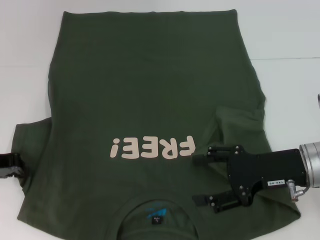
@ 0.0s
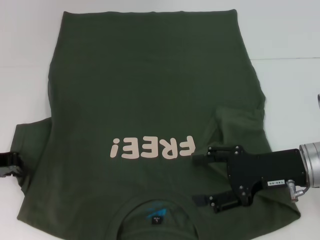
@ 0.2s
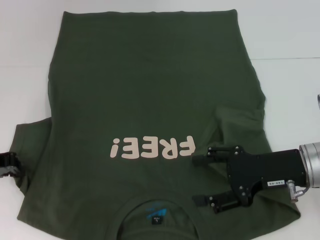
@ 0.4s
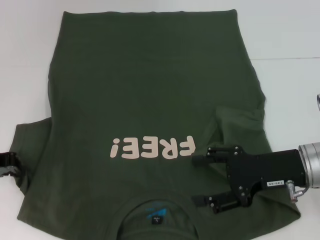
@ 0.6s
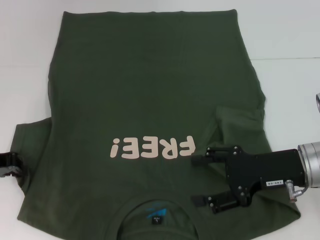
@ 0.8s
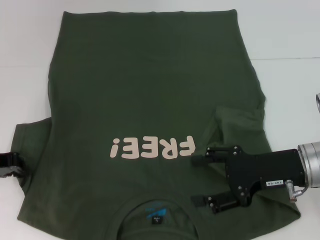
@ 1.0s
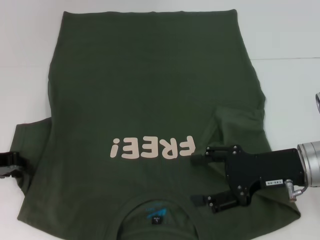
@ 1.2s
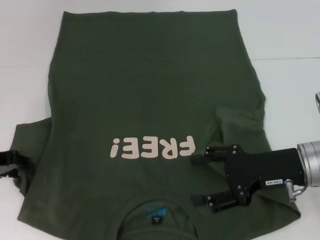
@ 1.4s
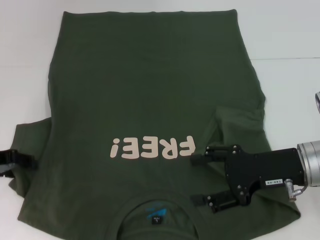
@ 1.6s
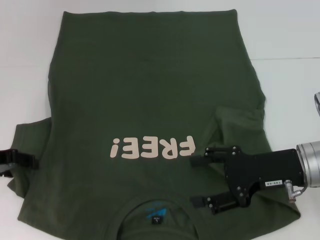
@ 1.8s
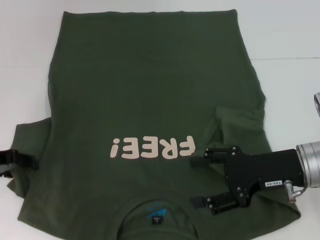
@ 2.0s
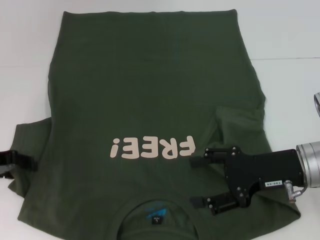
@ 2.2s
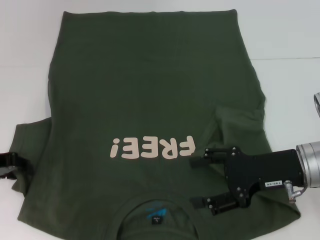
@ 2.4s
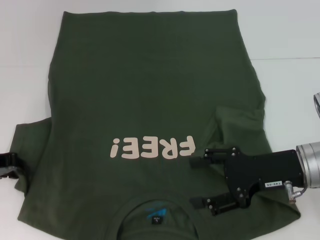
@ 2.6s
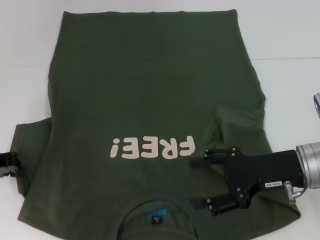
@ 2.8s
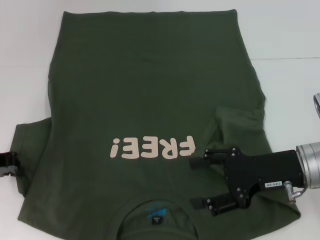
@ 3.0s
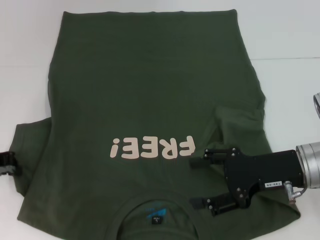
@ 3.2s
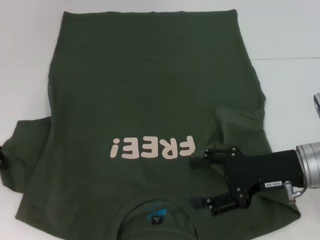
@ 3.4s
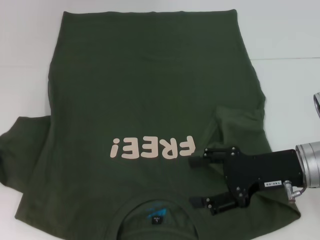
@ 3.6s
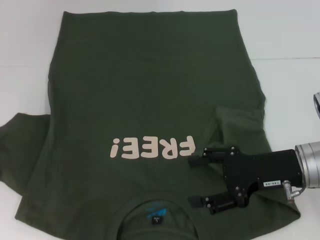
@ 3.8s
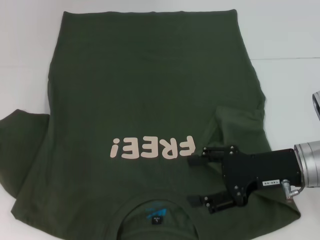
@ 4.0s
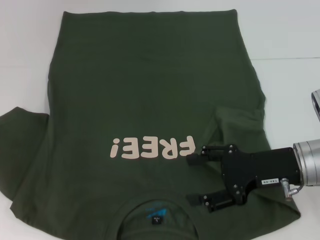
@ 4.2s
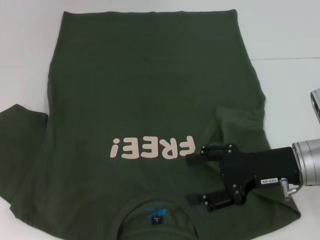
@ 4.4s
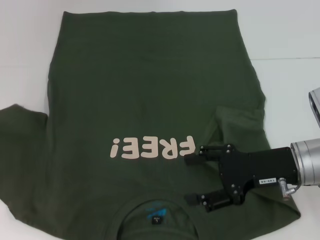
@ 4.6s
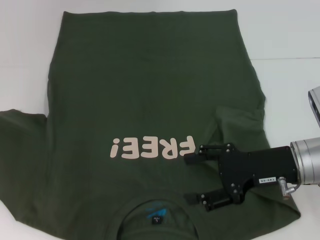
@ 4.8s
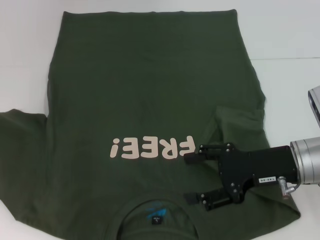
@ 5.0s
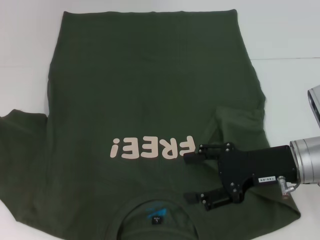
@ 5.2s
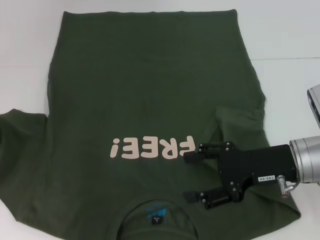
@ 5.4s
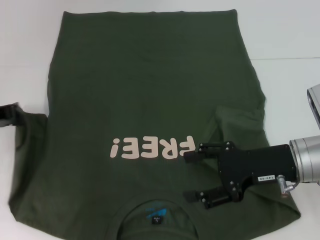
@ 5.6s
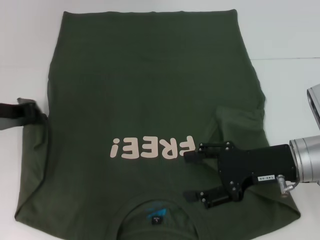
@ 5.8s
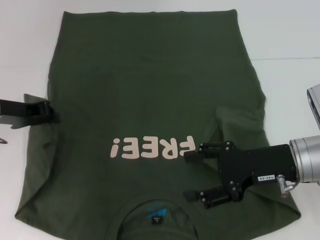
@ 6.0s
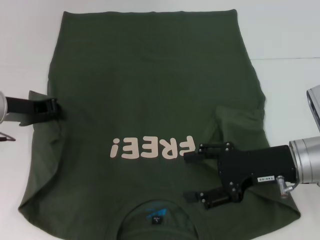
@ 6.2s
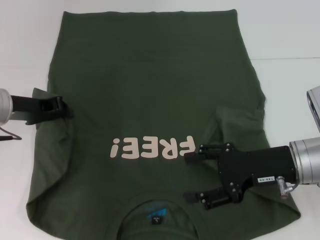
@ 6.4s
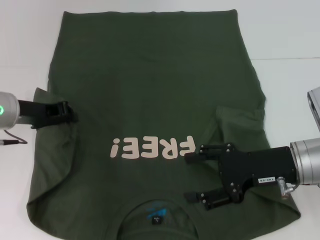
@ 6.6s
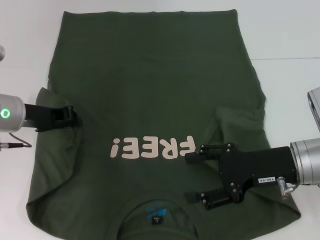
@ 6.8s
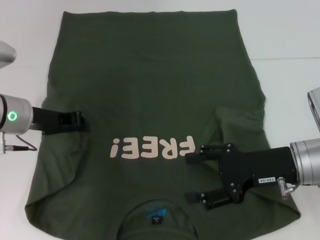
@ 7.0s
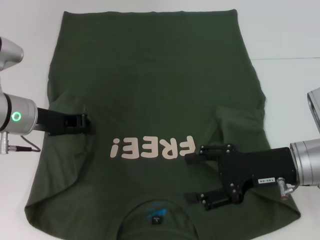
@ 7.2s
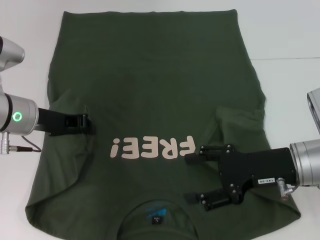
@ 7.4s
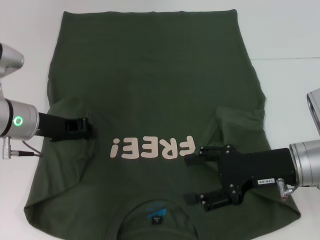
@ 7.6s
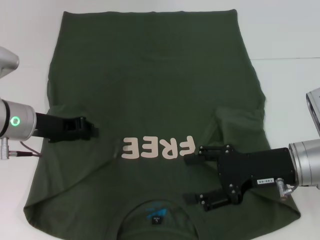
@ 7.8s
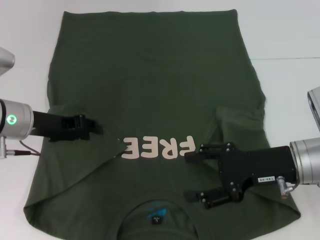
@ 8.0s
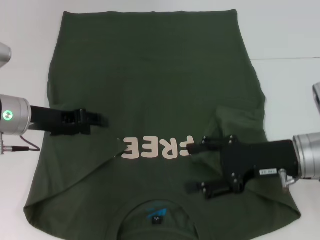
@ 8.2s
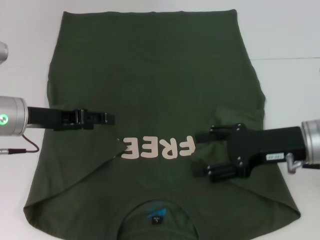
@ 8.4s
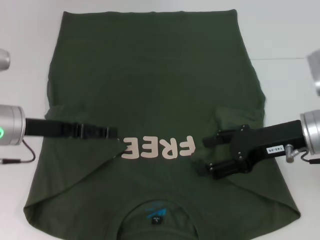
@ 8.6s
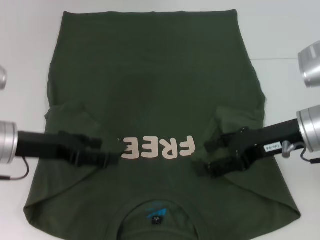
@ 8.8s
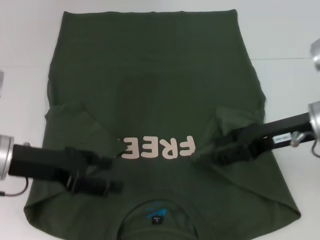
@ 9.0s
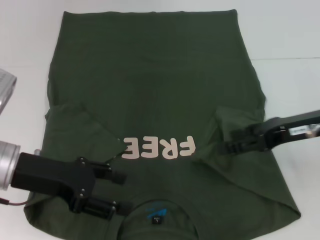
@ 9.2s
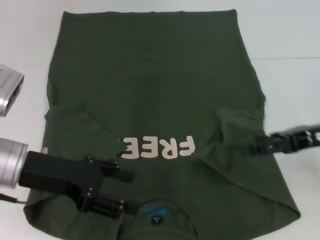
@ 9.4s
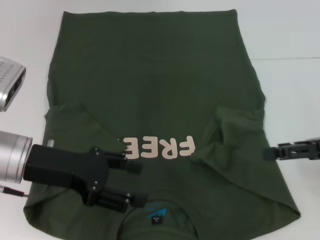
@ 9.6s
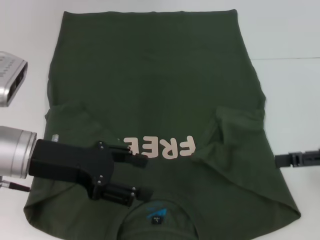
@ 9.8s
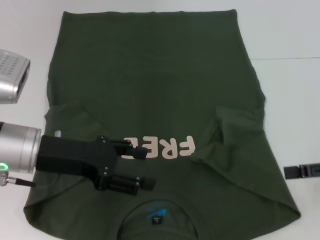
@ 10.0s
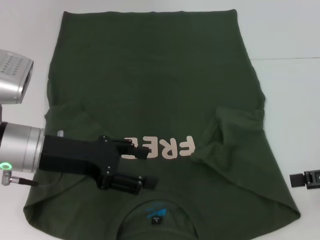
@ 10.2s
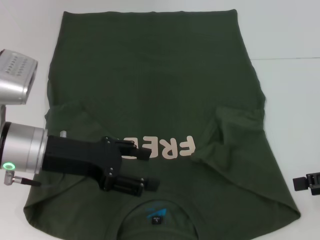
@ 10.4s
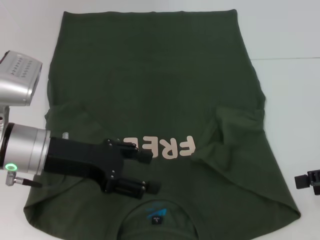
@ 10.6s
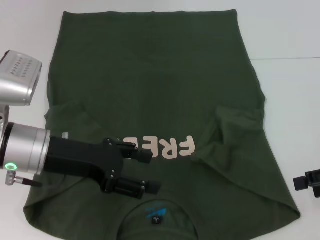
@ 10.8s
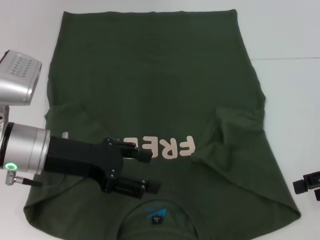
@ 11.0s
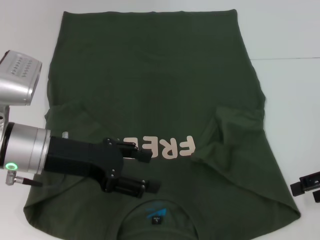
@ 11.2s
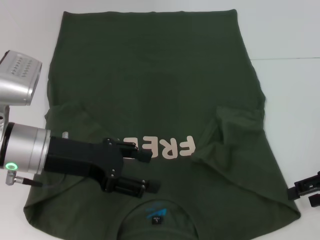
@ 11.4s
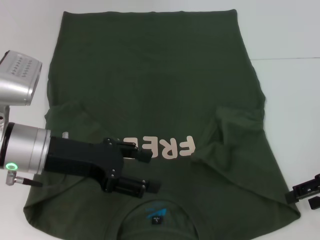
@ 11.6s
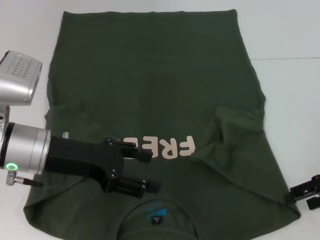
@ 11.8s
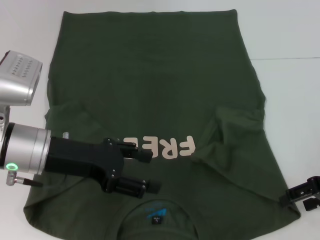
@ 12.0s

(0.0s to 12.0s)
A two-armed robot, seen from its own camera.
Step, 0.0s - 8.0s: Fold the bottom left sleeve with your left hand.
0.0s - 1.6s: The left gripper opens.
1.6s - 3.0s: The two grippers keep their place.
3.0s - 4.4s: The grippers make only small movements.
4.4s - 6.0s: The left gripper moves to the right, about 10 cm.
6.0s - 7.6s: The left gripper shifts by some 5 cm.
7.6s - 9.0s: The right gripper is displaced upward by some 5 cm. The left gripper goes approximately 5 cm backward, and opens its fingers.
9.0s - 10.4s: The right gripper moves to the right and backward, roughly 15 cm.
10.4s - 12.0s: The right gripper changes place by some 5 cm.

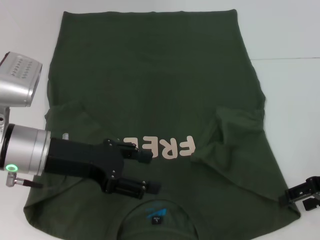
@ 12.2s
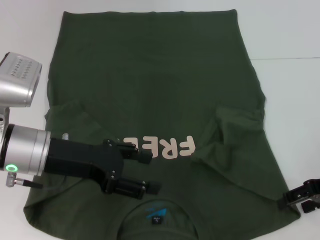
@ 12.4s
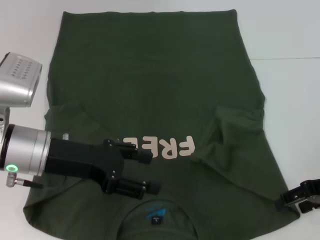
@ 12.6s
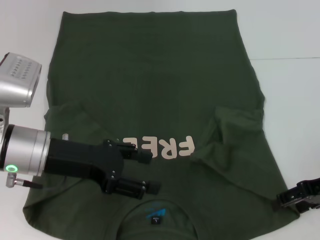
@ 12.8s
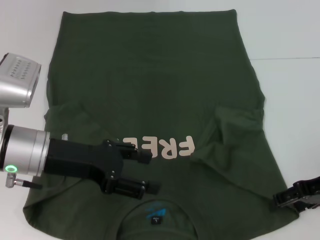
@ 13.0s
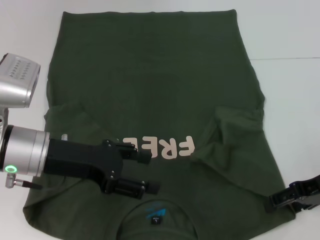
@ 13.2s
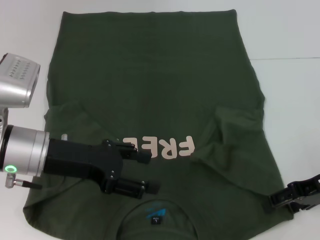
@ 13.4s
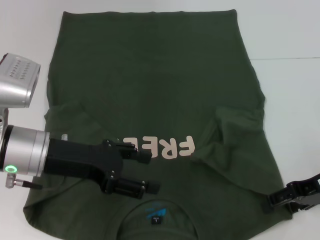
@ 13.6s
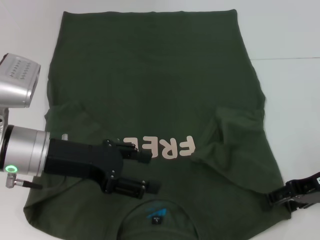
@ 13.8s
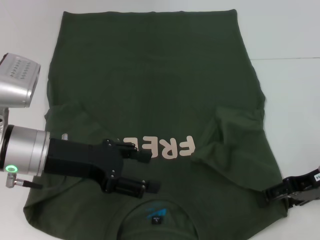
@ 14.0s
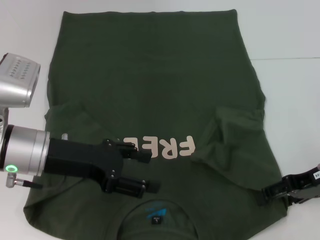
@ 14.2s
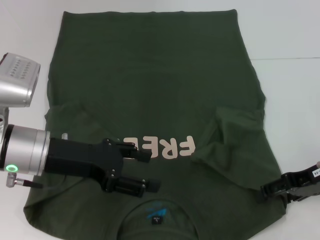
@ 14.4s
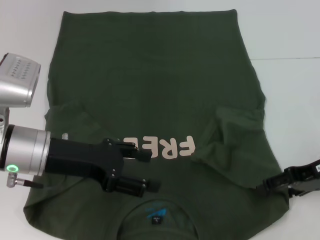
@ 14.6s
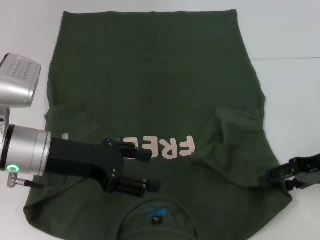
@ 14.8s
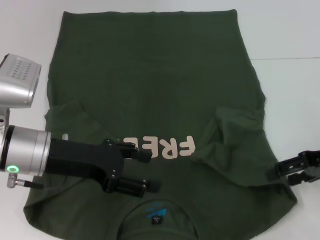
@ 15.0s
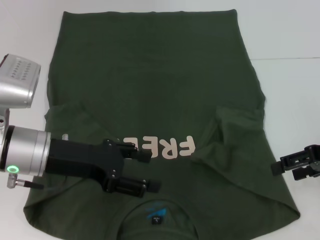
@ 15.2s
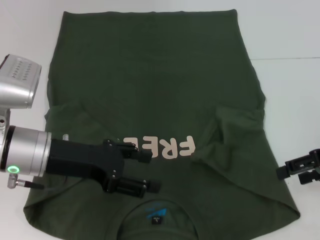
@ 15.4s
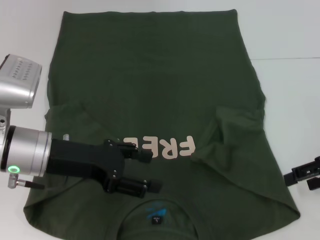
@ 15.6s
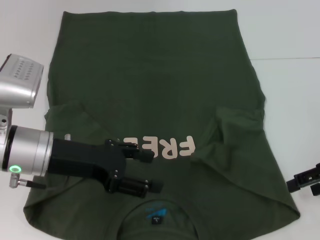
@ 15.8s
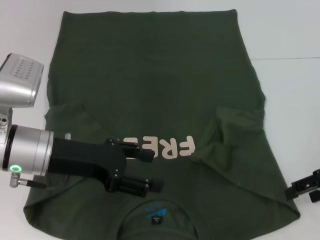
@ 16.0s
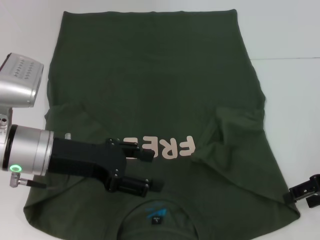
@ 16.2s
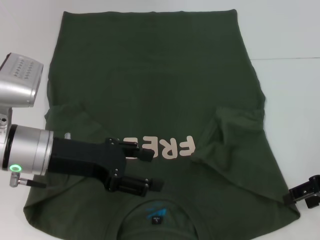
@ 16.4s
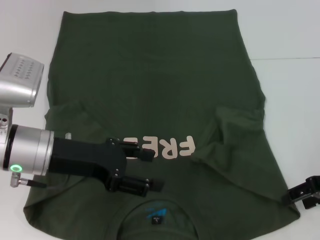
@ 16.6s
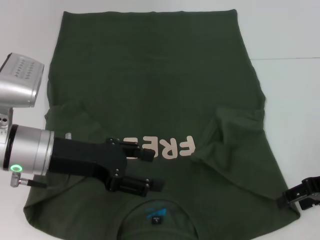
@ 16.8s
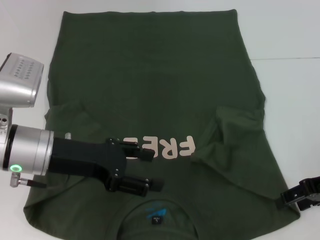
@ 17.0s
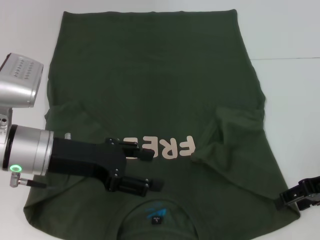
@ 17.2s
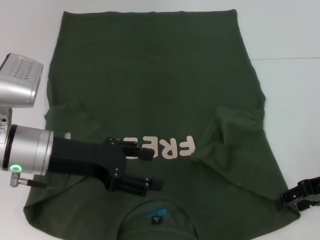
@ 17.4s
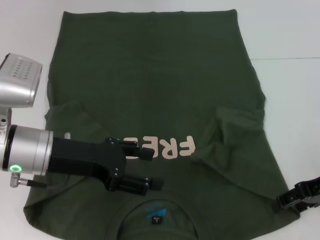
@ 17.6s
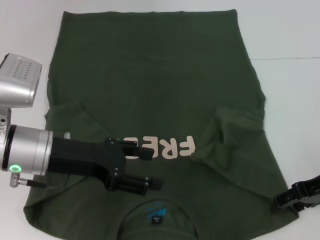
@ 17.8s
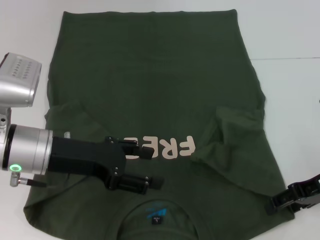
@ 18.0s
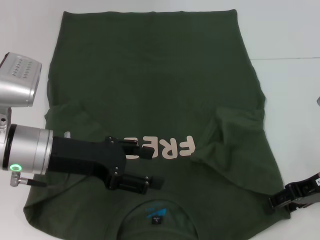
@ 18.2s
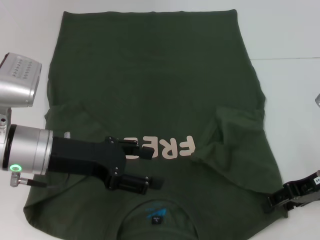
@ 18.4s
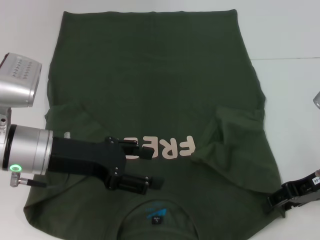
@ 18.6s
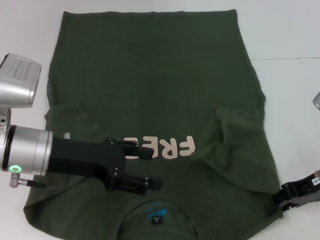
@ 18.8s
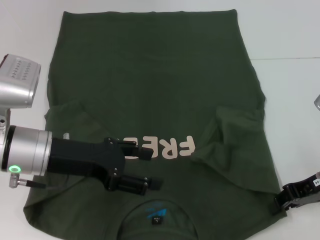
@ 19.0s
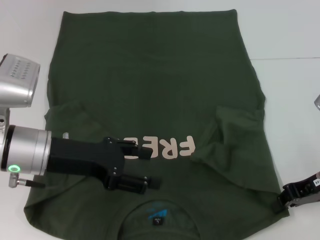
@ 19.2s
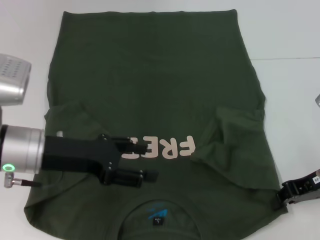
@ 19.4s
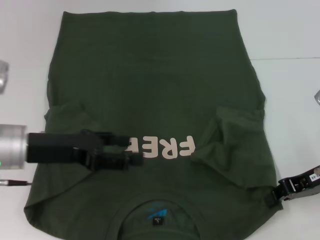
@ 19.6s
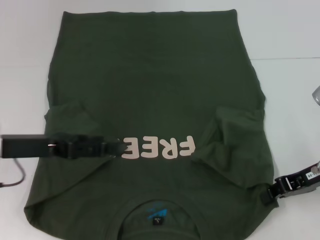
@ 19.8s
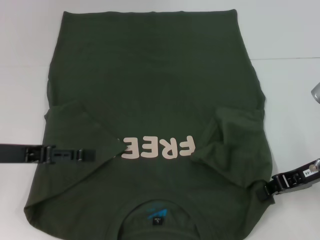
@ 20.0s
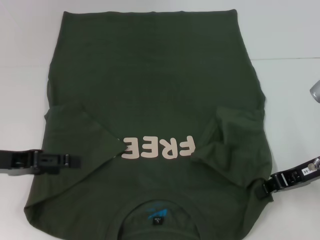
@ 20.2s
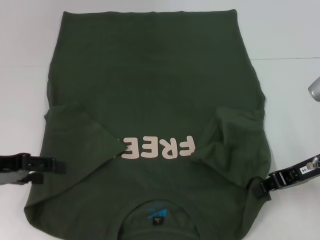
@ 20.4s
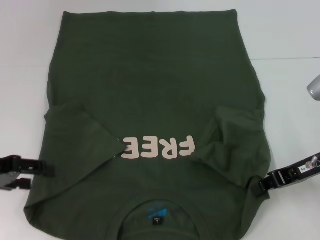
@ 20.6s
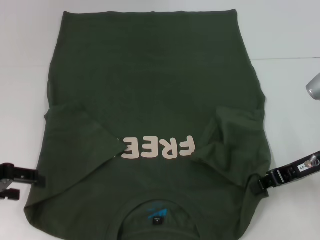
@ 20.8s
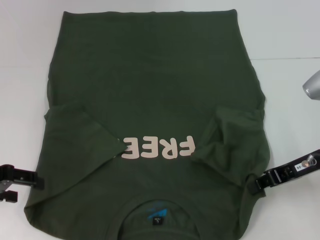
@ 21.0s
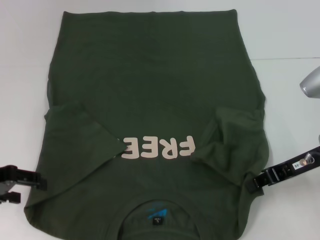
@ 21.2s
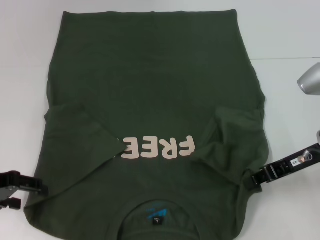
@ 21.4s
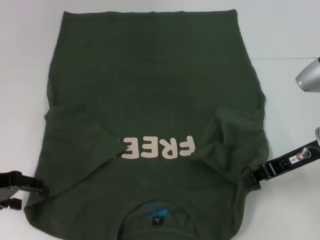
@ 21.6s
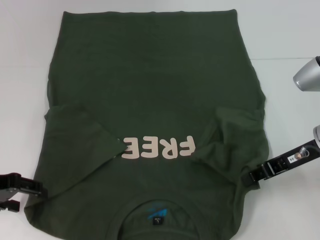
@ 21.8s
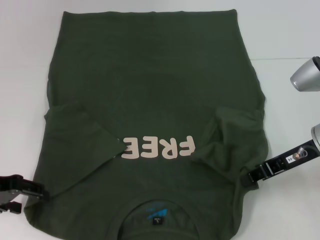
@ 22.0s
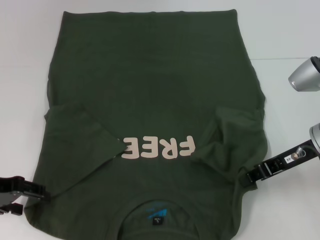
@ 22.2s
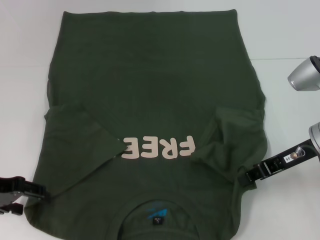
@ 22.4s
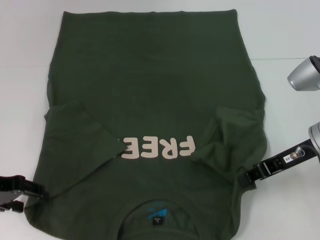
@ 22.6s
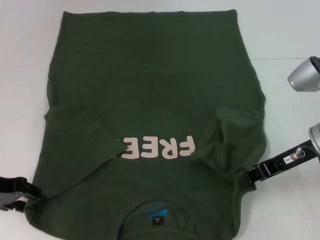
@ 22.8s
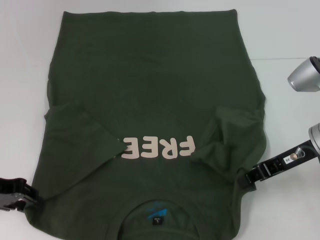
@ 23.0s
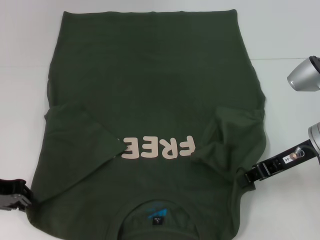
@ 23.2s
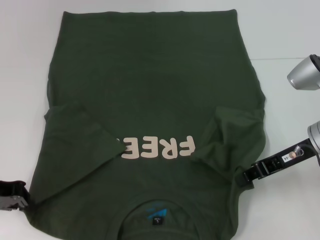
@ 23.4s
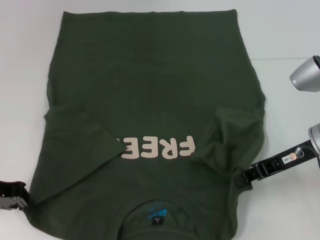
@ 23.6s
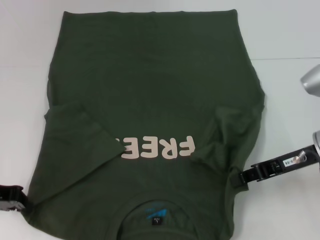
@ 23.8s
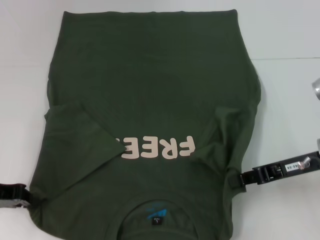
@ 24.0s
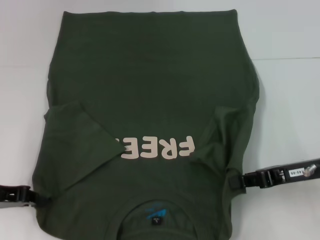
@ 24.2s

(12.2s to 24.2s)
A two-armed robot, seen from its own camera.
Step, 12.2s - 19.0s: Grab the bottom right corner with your right hand.
Step, 19.2s - 24.0s: Grab the bottom left corner with your left hand.
12.2s - 13.8s: The grippers stay close to where they were, moving slightly.
13.8s - 15.2s: The right gripper changes place by approximately 5 cm.
15.2s - 18.2s: There are only small adjustments of the grippers.
18.2s - 19.8s: The right gripper closes up. The left gripper shifts approximately 5 cm to the left.
19.8s - 21.2s: The left gripper heads to the left, covering some 5 cm.
21.2s - 22.6s: There are only small adjustments of the grippers.
22.6s - 24.2s: The right gripper shifts by about 5 cm. Meanwhile the left gripper closes its fingers.
